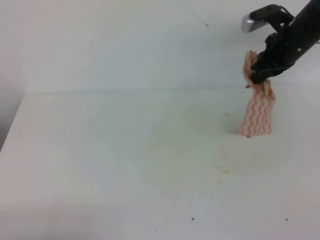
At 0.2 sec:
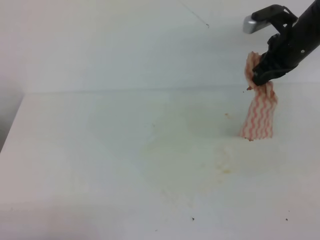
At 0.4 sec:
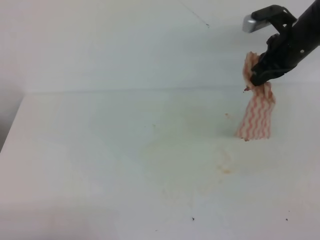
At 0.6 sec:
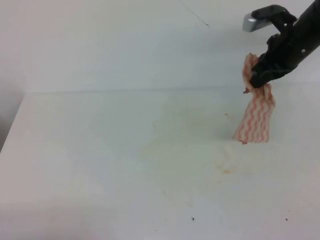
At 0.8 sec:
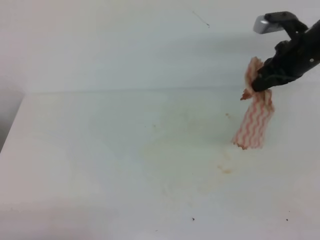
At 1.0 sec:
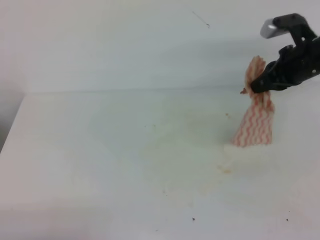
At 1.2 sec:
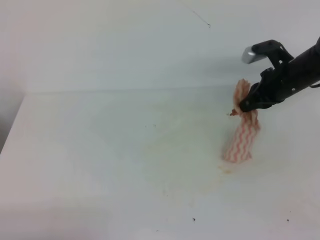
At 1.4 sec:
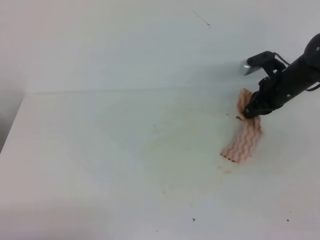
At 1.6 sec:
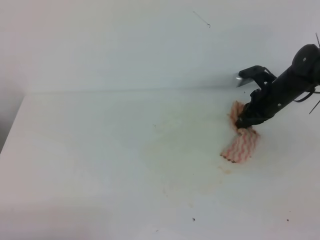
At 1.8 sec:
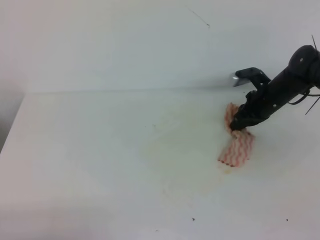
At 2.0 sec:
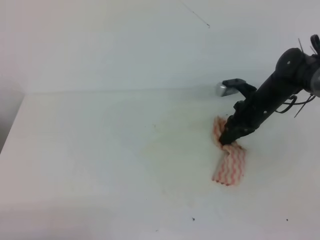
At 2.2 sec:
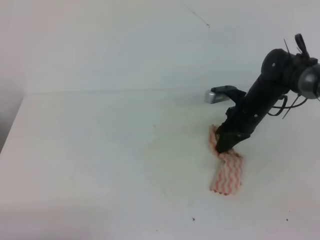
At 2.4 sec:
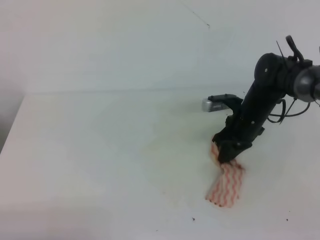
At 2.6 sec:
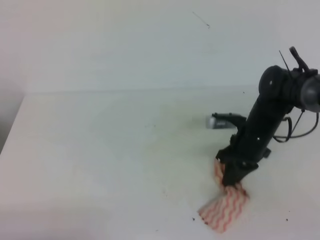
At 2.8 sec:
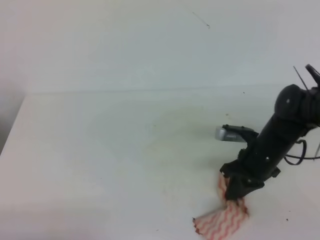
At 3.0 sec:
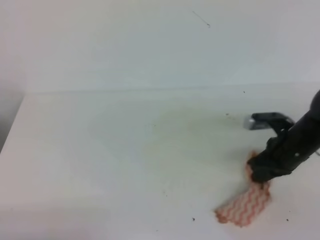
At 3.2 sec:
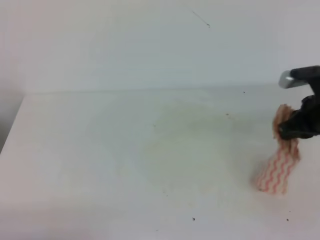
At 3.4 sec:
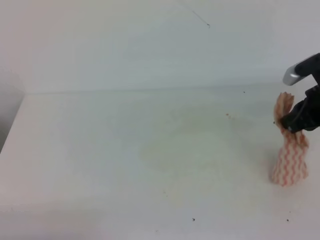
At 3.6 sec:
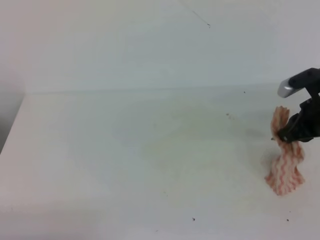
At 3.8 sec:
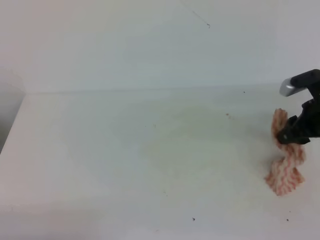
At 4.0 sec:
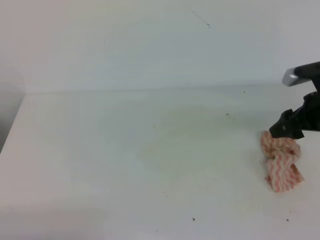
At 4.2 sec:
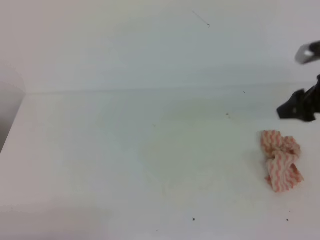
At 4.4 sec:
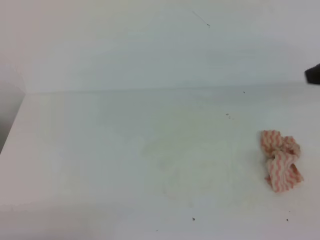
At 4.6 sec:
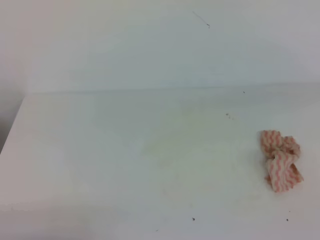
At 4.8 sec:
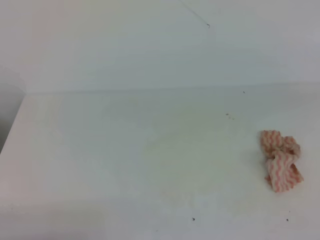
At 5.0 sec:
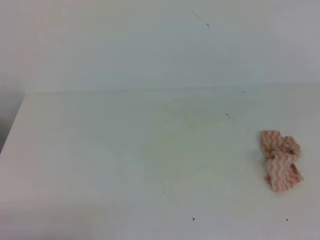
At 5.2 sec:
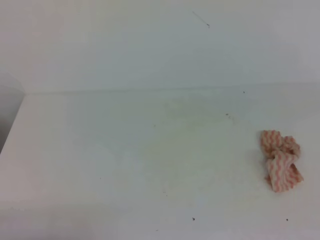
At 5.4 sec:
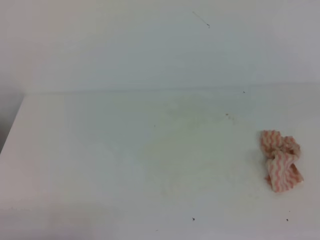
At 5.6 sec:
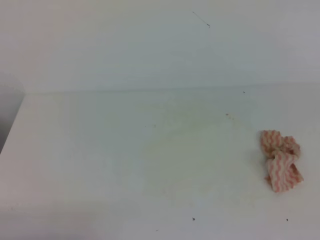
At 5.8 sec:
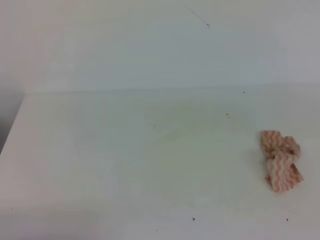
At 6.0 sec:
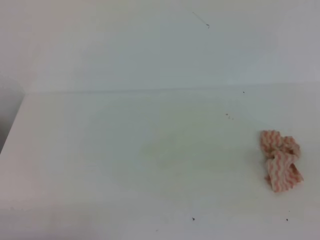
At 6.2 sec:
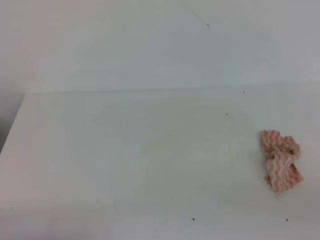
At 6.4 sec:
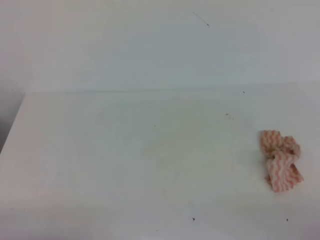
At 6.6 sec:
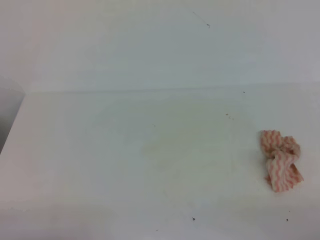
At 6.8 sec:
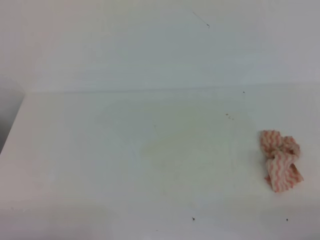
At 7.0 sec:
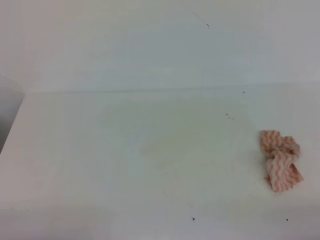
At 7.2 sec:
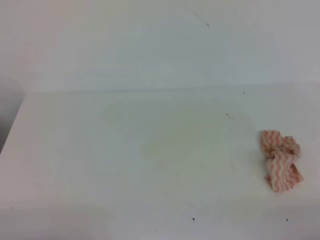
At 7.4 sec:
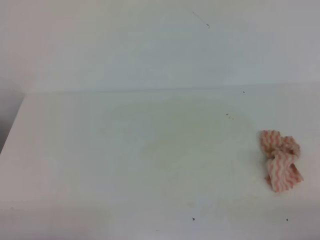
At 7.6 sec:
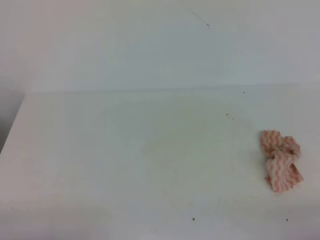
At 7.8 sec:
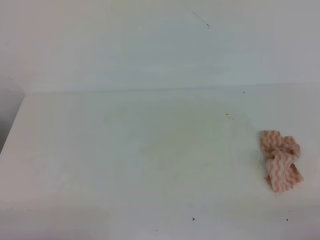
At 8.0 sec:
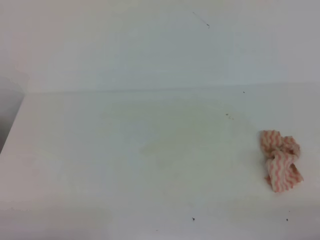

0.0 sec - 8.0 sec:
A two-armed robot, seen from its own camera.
0.0 sec - 1.6 sec: The right gripper shifts some 15 cm downward.
1.6 sec - 3.2 sec: The right gripper moves backward and upward, some 15 cm.
3.2 sec - 4.8 sec: The right gripper moves upward and backward, roughly 30 cm, and opens and closes again.
